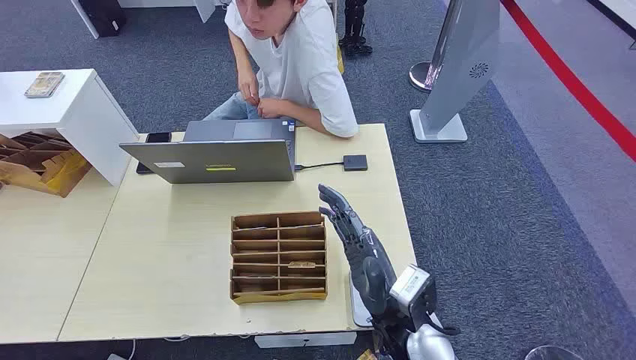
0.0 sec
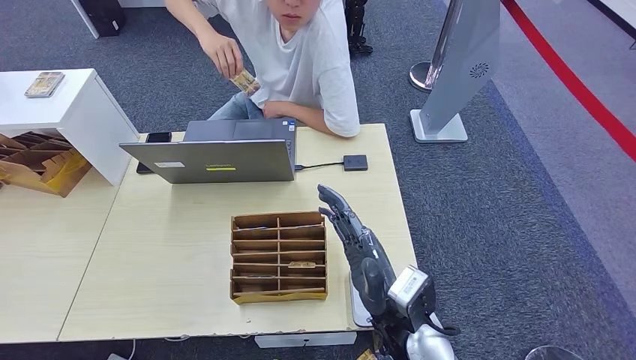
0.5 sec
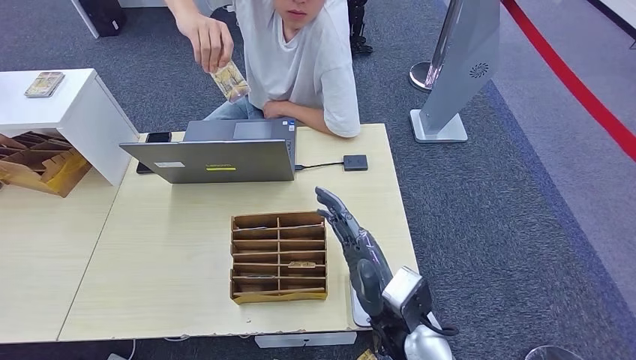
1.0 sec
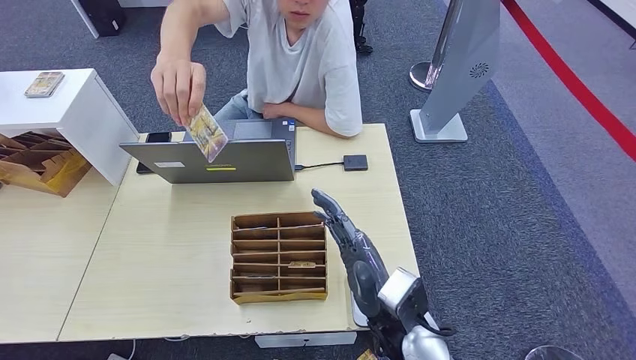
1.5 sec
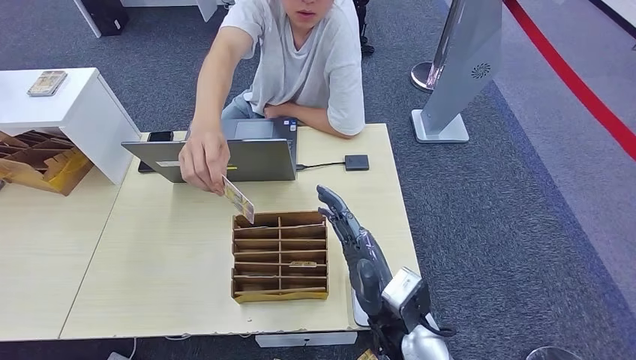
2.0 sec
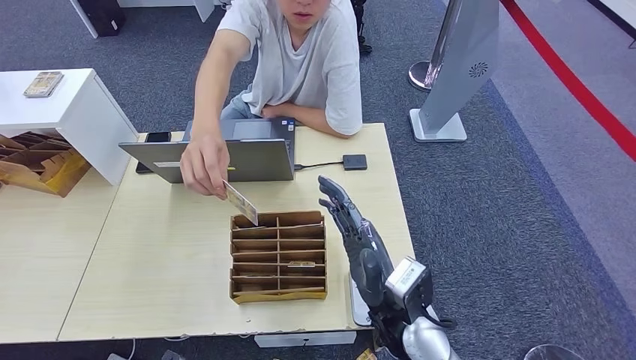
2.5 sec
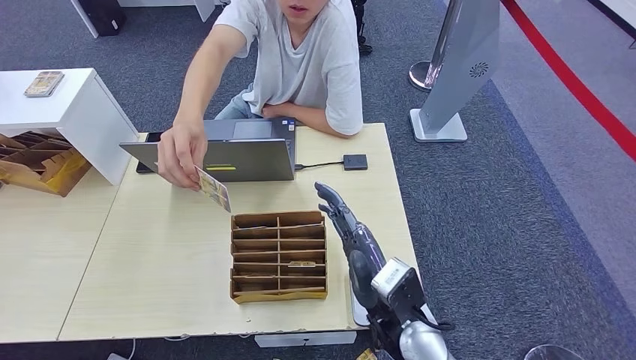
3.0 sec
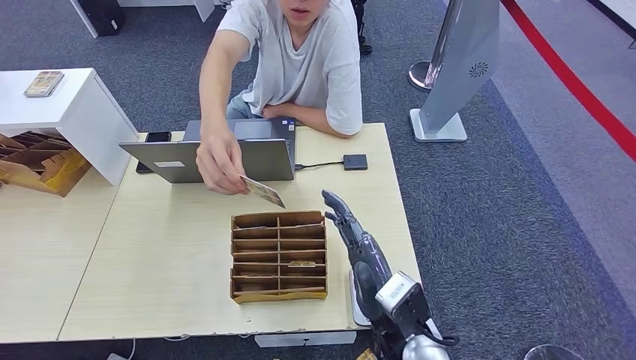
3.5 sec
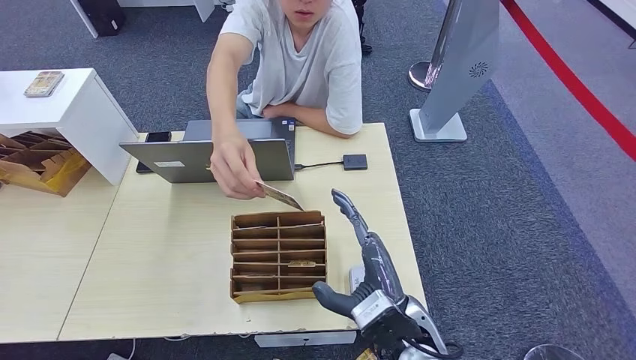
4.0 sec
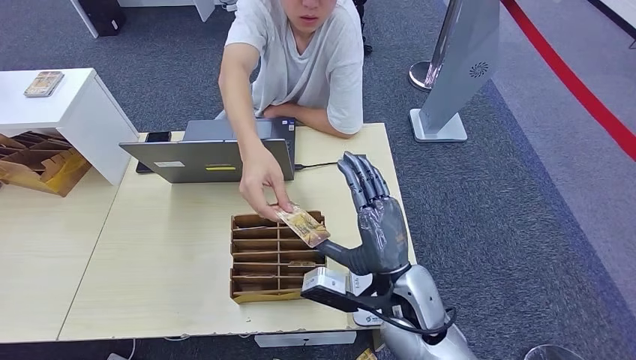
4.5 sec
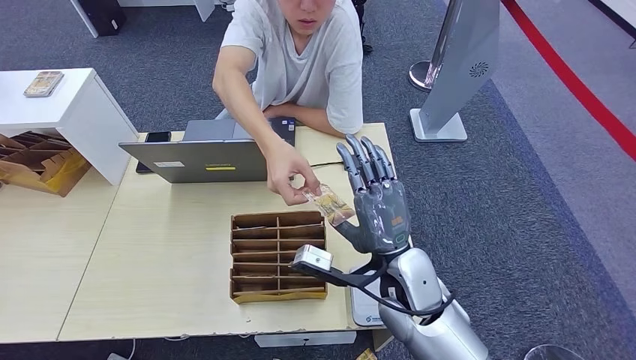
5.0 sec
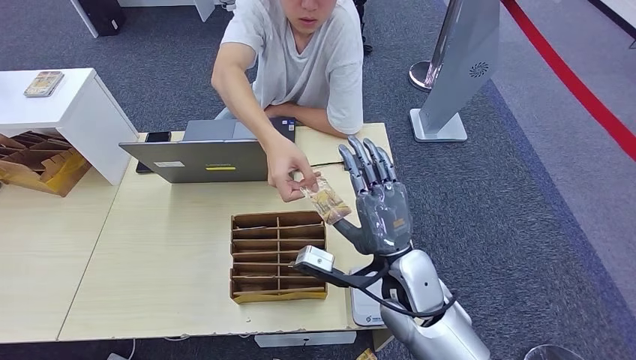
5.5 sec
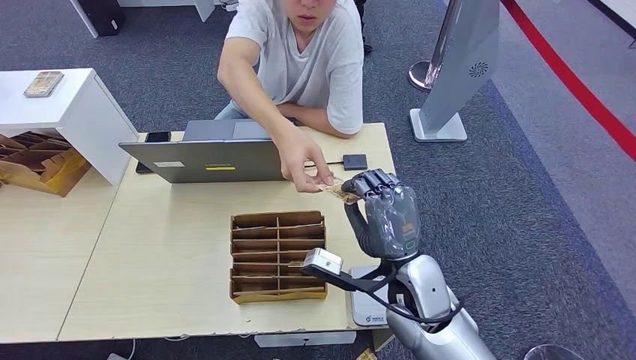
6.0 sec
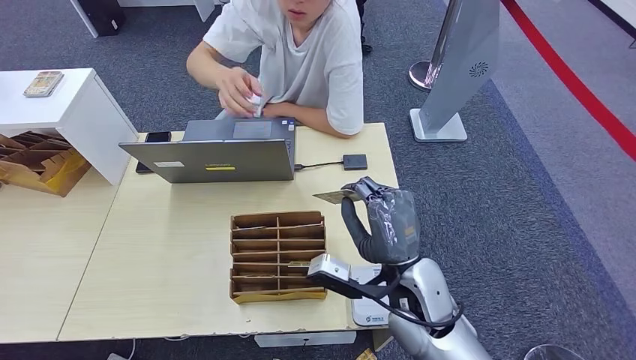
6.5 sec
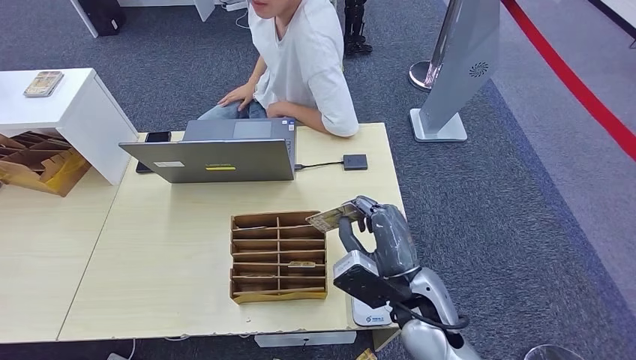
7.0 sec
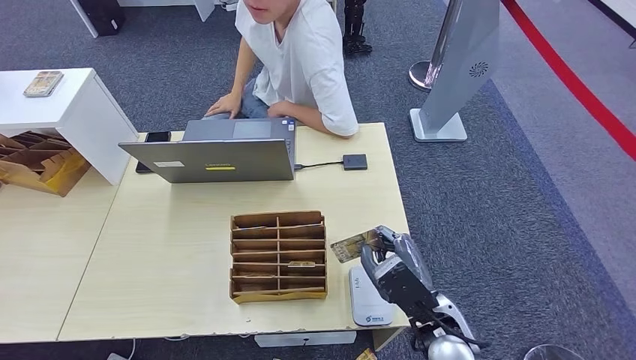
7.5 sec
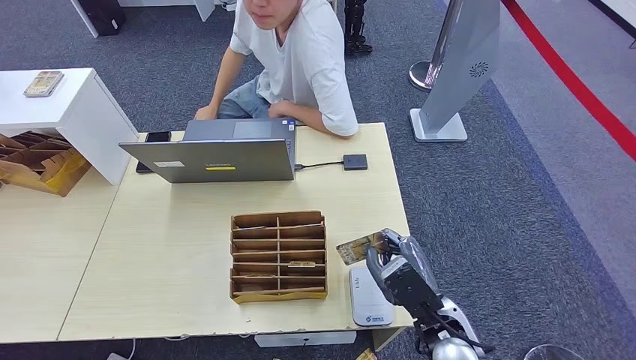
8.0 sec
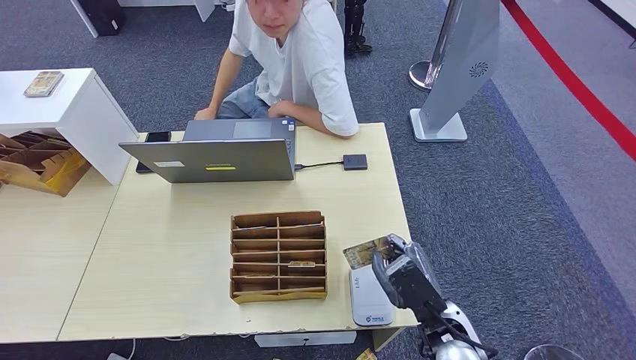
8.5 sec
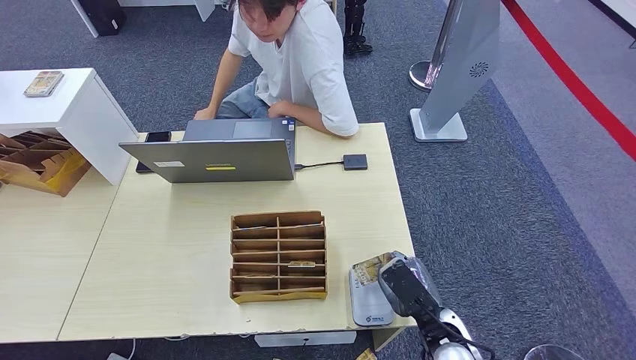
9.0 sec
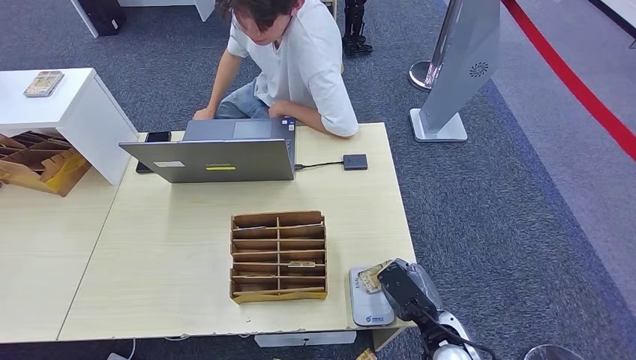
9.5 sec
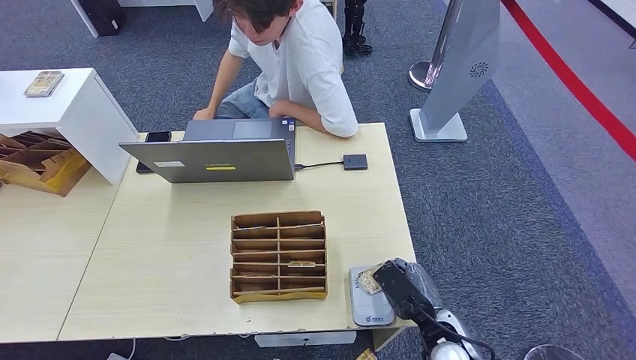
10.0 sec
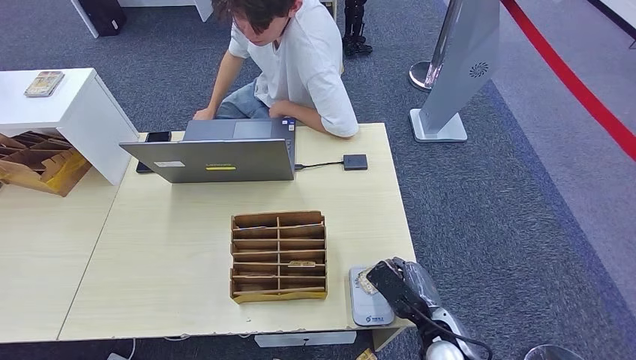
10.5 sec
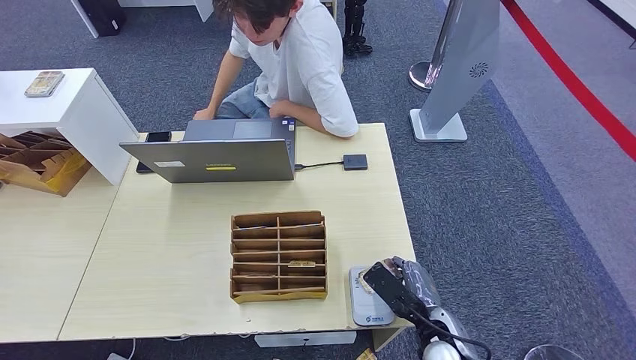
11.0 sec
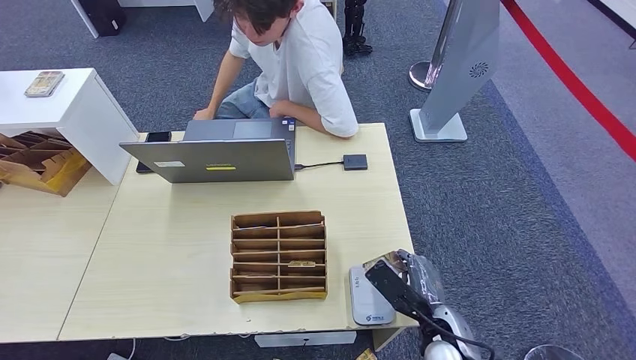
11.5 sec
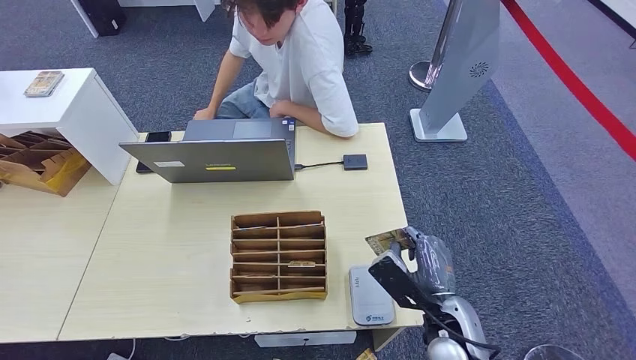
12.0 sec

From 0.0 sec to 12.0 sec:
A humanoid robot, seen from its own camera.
Step, from 0.0 sec to 6.5 sec: Take the ID card from the person's hand.
Step, from 7.0 sec to 11.5 sec: Place the ID card on the card reader.
From 2.0 sec to 4.0 sec: The left hand shifts roughly 10 cm to the right.
From 4.0 sec to 6.0 sec: The right hand moves forward, roughly 5 cm.
From 6.0 sec to 8.0 sec: The right hand moves backward, downward and to the right, some 10 cm.
From 8.0 sec to 10.0 sec: The right hand is displaced downward by about 5 cm.
From 10.0 sec to 12.0 sec: The right hand moves approximately 5 cm.

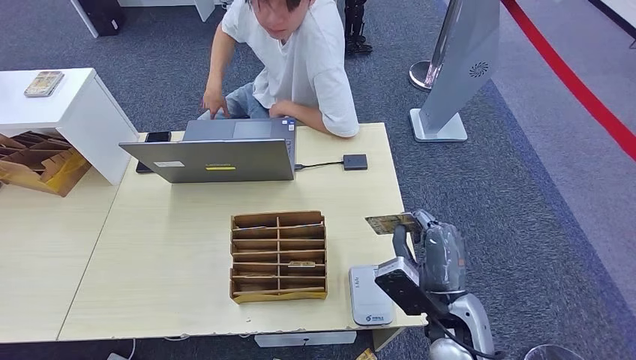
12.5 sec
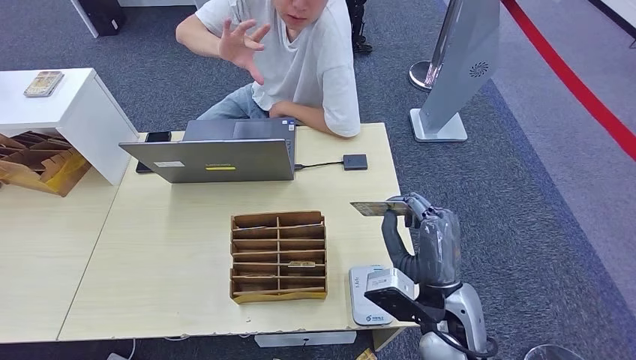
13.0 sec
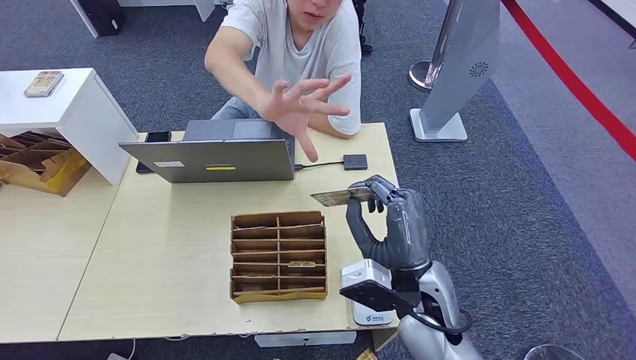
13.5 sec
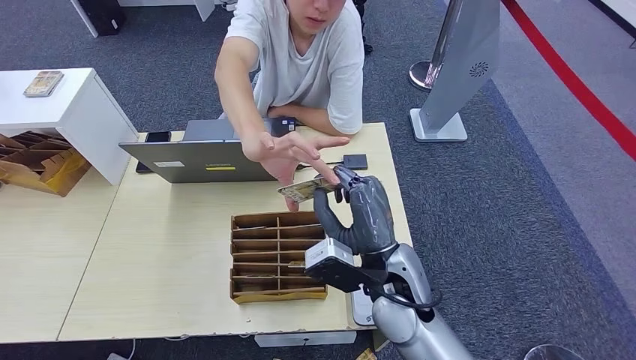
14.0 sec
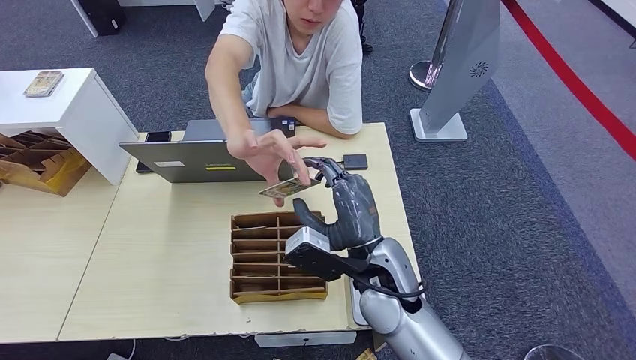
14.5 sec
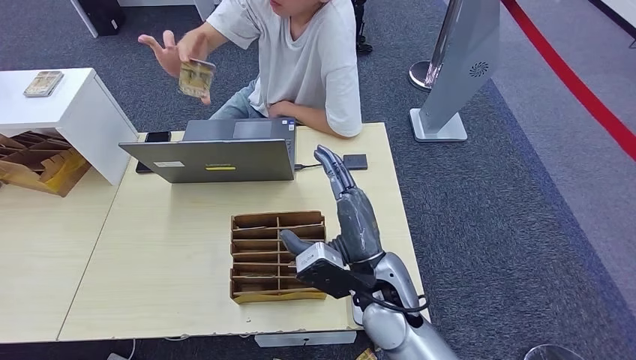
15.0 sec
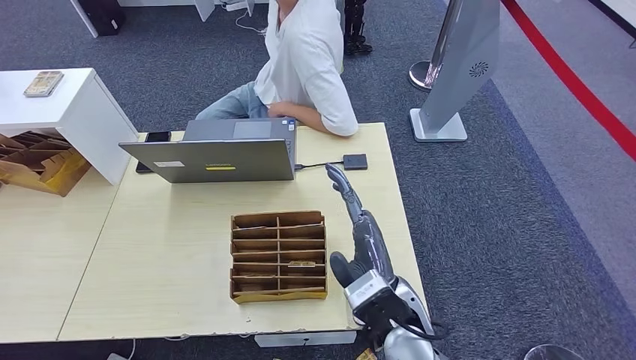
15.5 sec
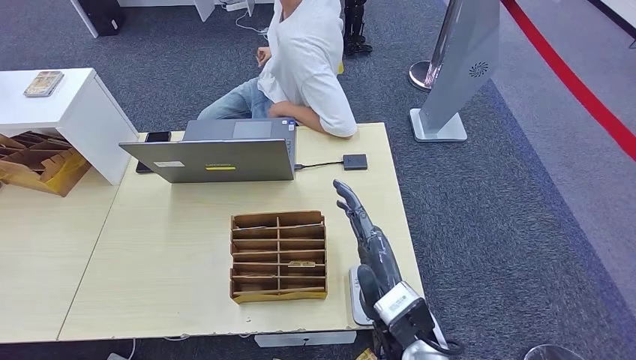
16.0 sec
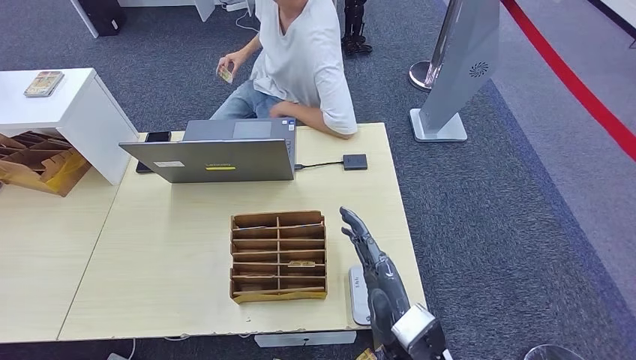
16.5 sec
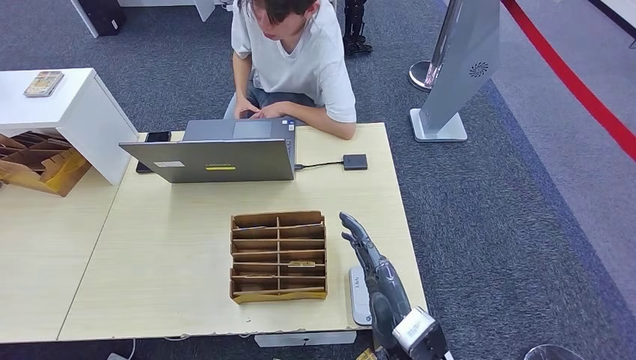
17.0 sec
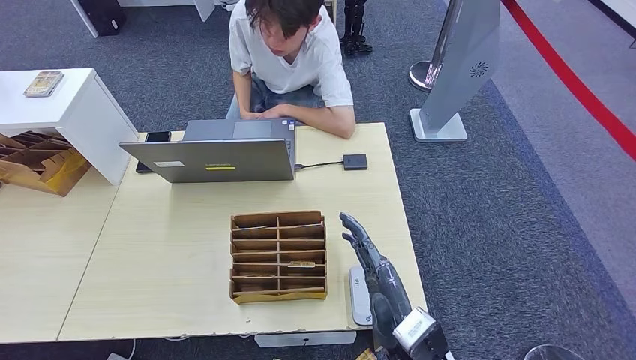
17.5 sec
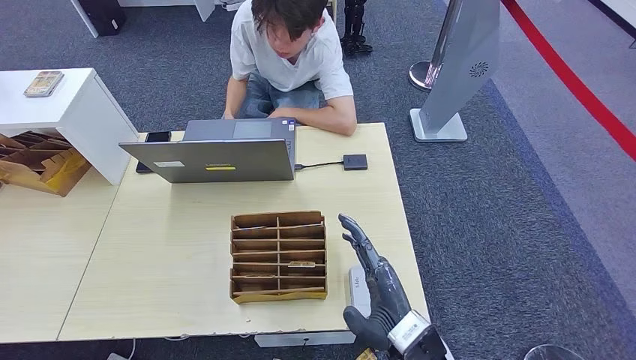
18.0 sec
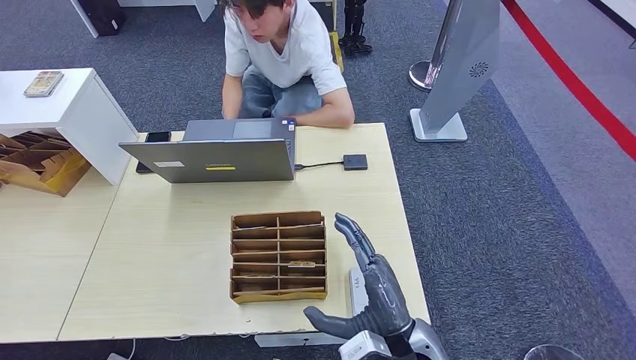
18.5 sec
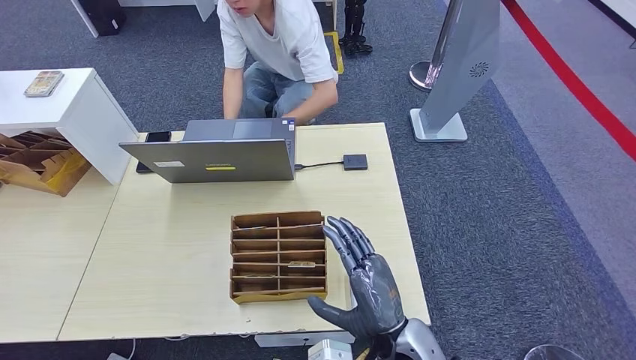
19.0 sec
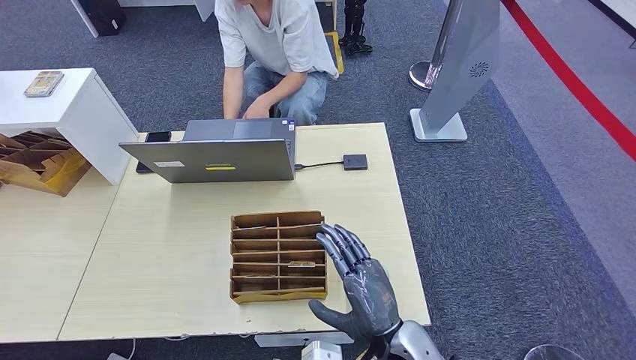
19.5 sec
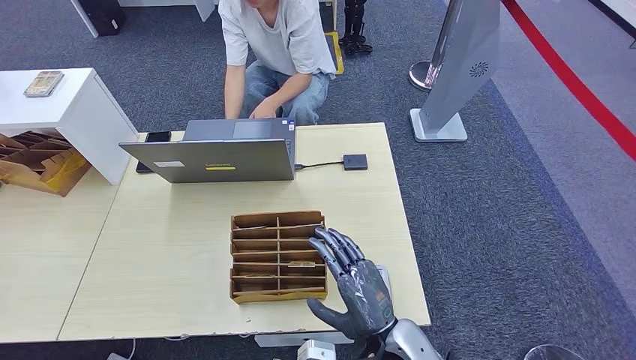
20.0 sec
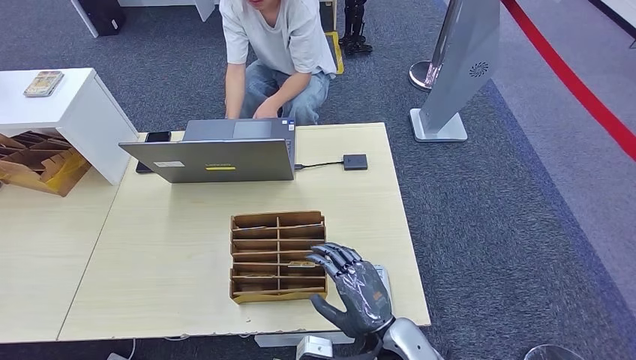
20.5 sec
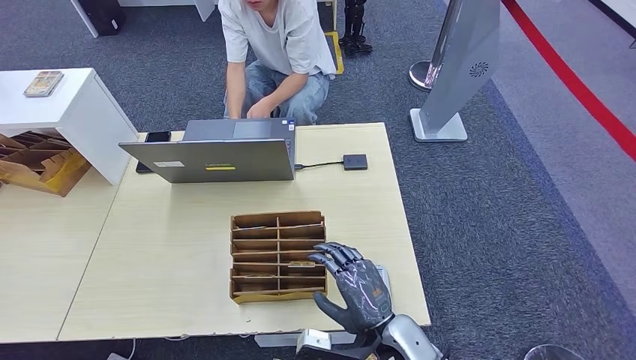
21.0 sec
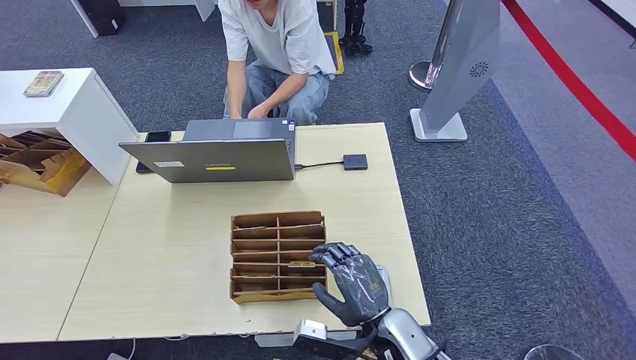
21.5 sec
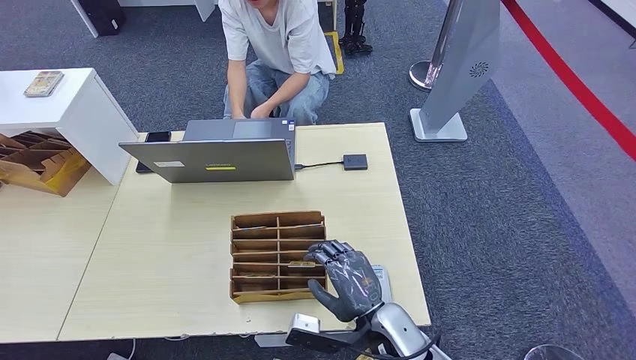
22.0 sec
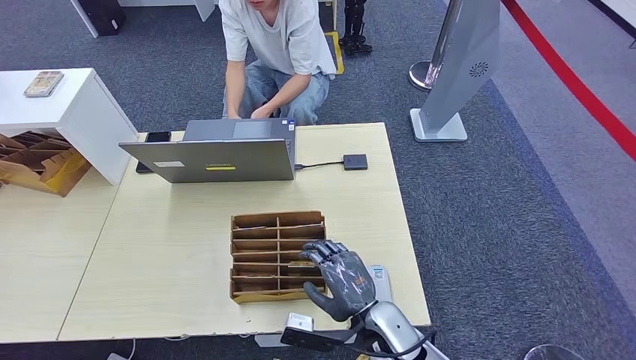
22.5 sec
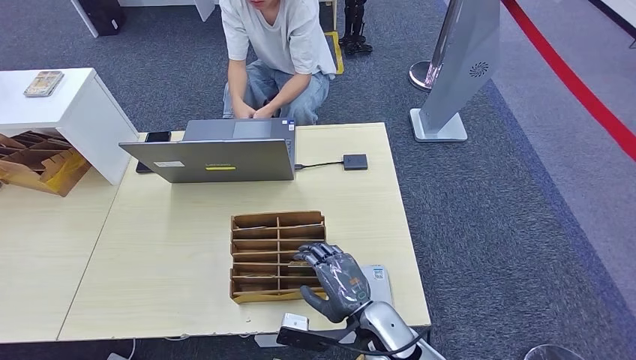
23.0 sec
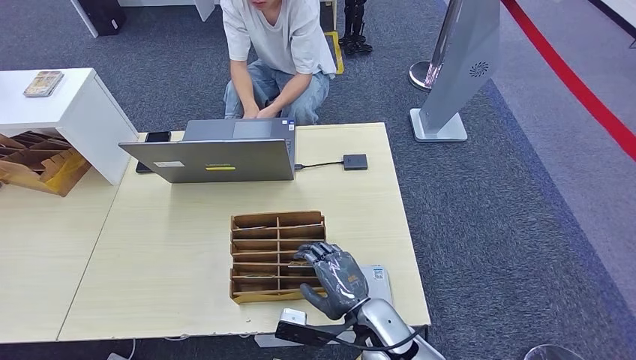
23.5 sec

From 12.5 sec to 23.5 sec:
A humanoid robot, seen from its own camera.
Step, from 12.5 sec to 15.5 sec: Hand the ID card to the person.
From 12.5 sec to 14.5 sec: The right hand travels to the left, forward and upward by about 15 cm.
From 14.5 sec to 16.0 sec: The right hand is displaced backward by some 10 cm.
From 16.0 sec to 18.0 sec: The right hand ends up roughly 5 cm from where it was.
From 20.0 sec to 23.5 sec: The hands stay close to where they were, moving slightly.
